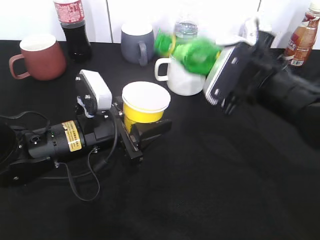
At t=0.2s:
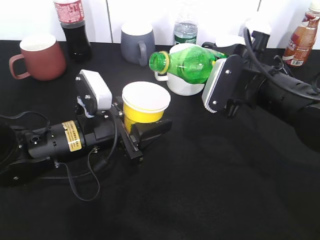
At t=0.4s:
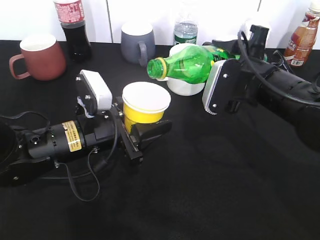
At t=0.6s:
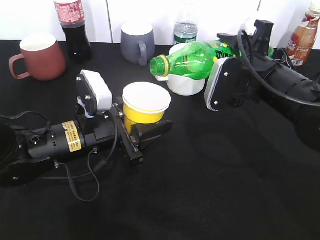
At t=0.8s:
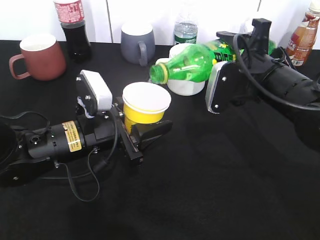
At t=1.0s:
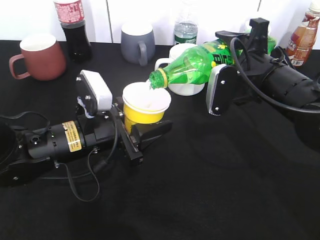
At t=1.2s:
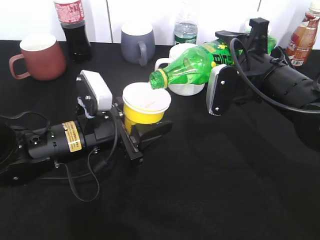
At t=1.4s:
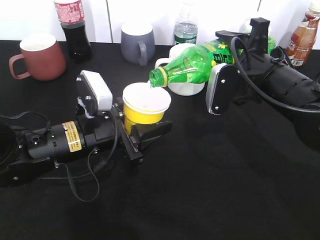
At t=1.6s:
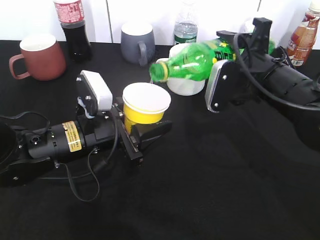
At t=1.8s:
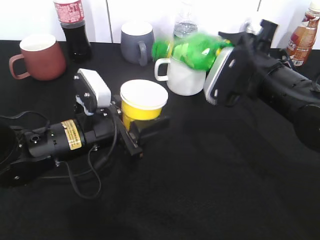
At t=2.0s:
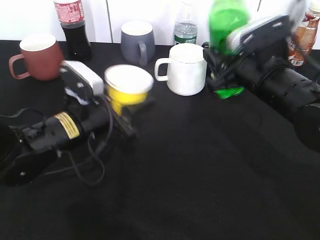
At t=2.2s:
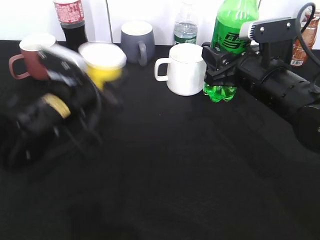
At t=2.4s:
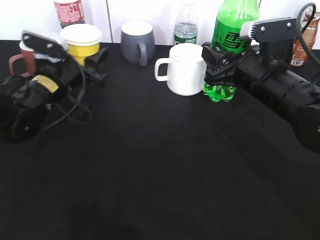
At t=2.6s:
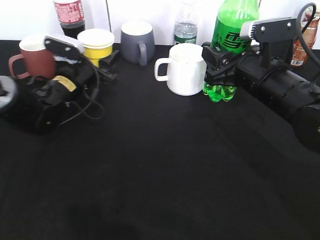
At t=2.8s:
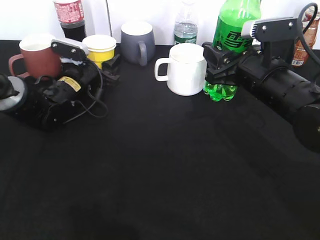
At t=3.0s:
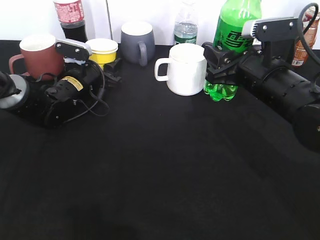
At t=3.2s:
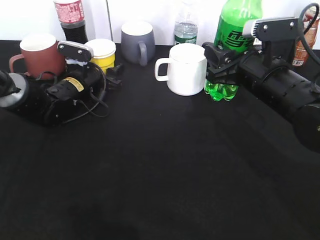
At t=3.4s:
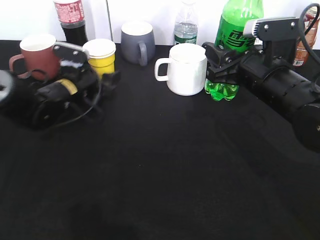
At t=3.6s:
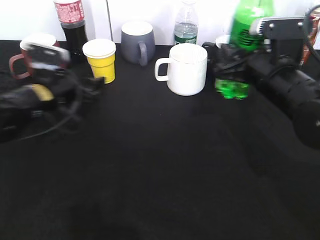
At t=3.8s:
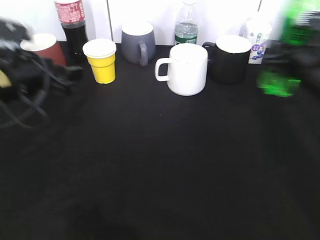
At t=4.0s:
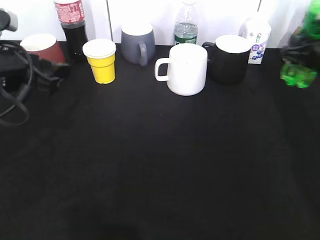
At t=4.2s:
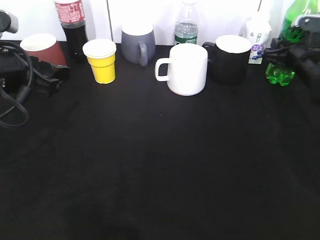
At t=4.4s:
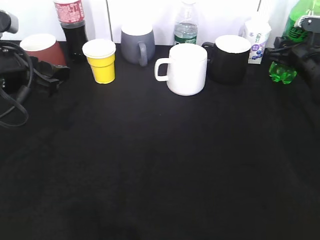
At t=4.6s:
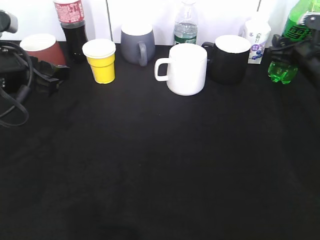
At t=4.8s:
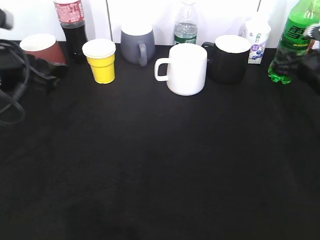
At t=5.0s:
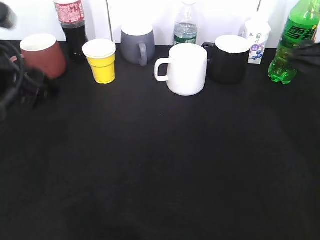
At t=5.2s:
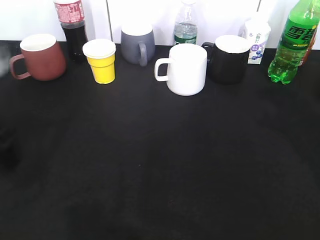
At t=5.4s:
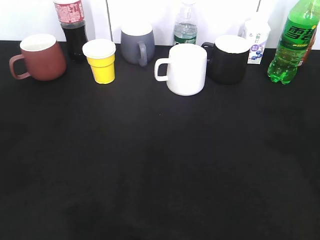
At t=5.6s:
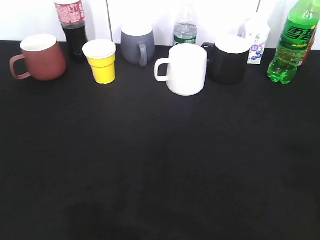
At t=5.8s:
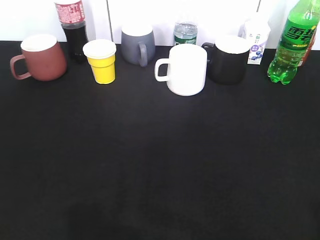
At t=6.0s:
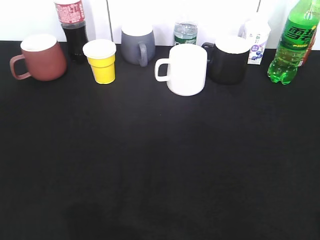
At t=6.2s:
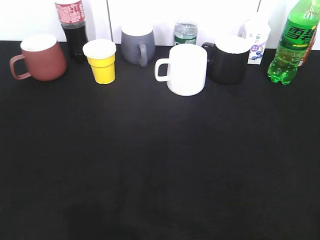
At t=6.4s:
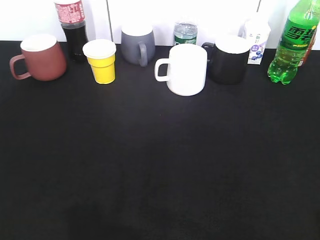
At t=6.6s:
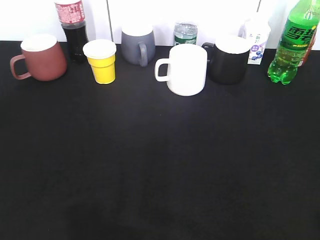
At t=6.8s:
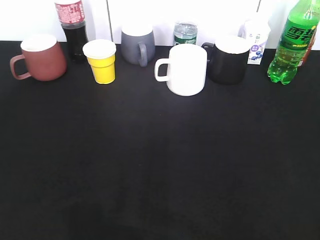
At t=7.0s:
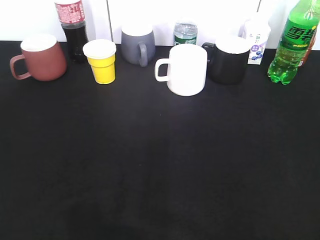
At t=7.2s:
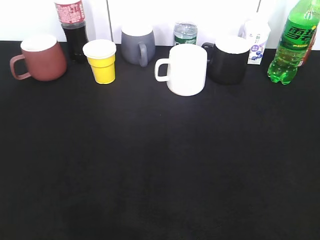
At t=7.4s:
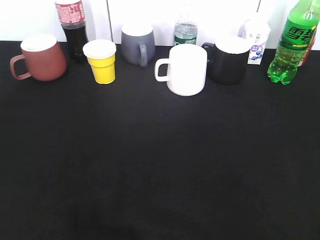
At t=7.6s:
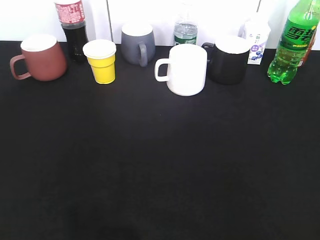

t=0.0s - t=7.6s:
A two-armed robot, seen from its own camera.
Step, t=0.0s - t=1.6s: Pour the sprite from bottle to cup with right gripper.
Step, t=2.0s - t=4.8s: Place the sprite bottle on the table with right gripper.
t=1.6s - t=3.0s: The left gripper is displaced forward by about 20 cm.
t=3.0s - t=4.6s: The right gripper moves to the right and forward, approximately 15 cm, and opens; the left gripper moves backward and upward, some 20 cm, and opens its fingers.
t=4.6s - t=6.0s: The right gripper shifts roughly 40 cm backward; the left gripper shifts about 25 cm backward.
